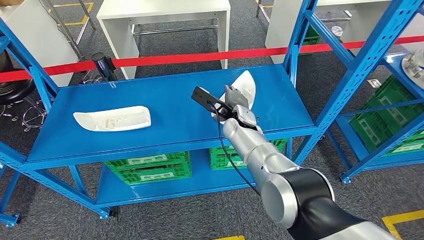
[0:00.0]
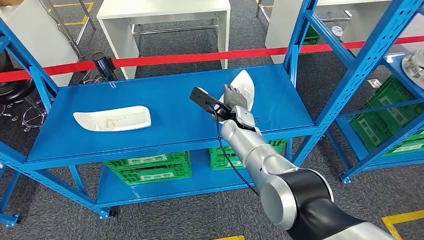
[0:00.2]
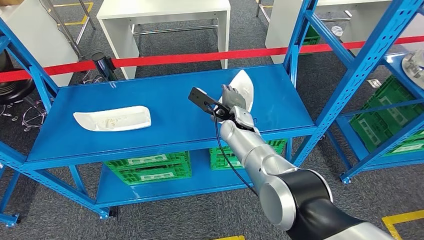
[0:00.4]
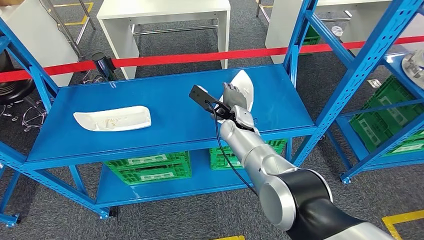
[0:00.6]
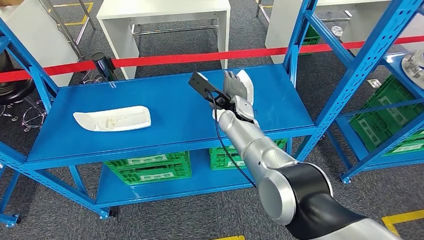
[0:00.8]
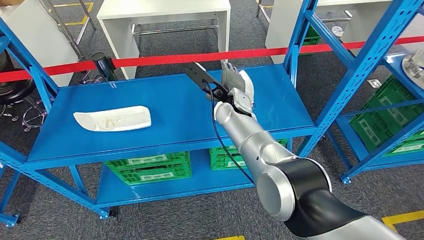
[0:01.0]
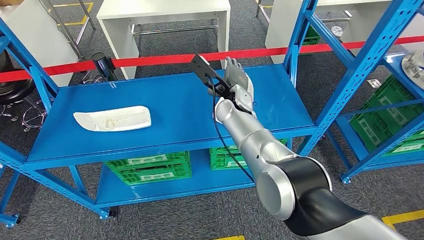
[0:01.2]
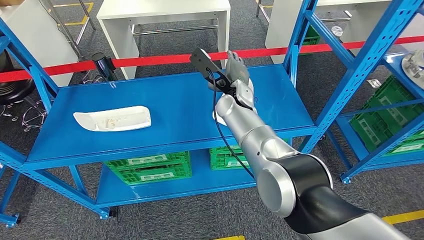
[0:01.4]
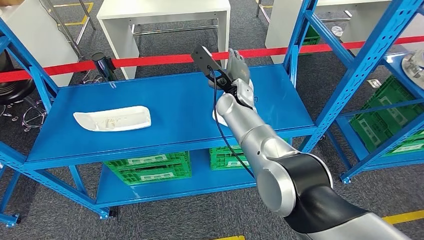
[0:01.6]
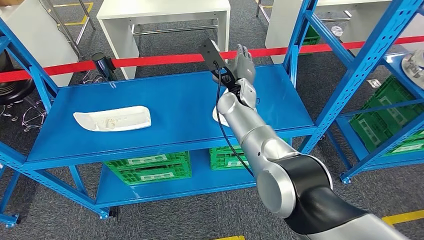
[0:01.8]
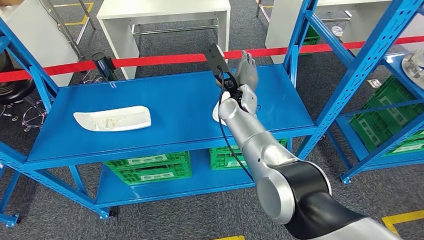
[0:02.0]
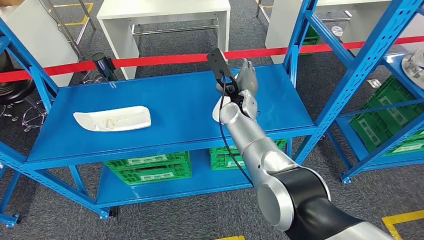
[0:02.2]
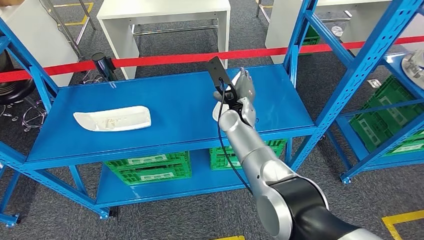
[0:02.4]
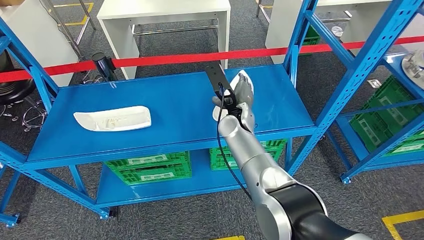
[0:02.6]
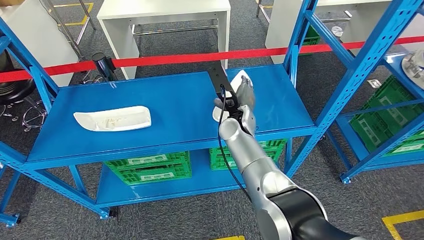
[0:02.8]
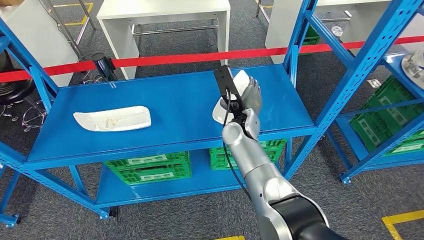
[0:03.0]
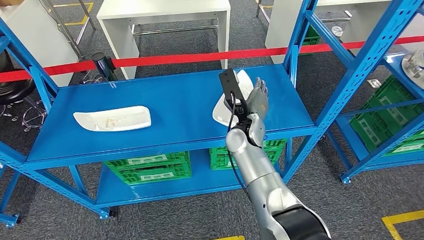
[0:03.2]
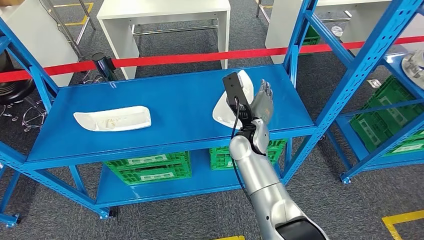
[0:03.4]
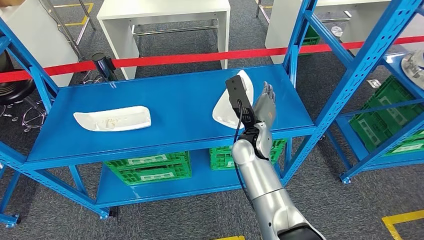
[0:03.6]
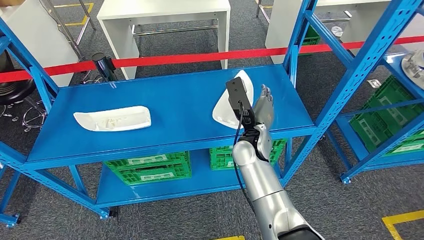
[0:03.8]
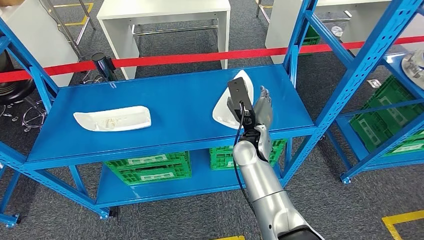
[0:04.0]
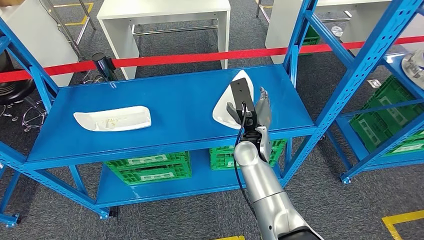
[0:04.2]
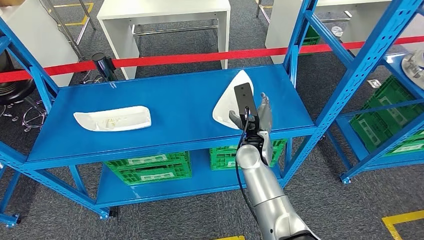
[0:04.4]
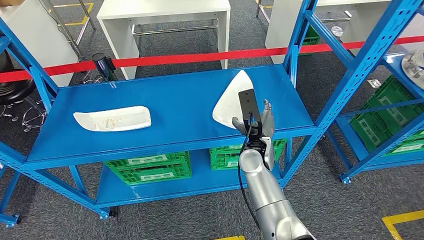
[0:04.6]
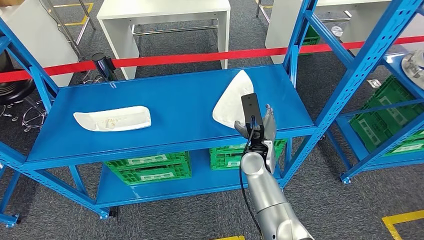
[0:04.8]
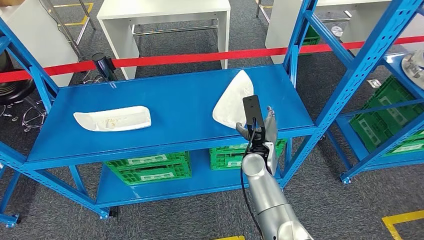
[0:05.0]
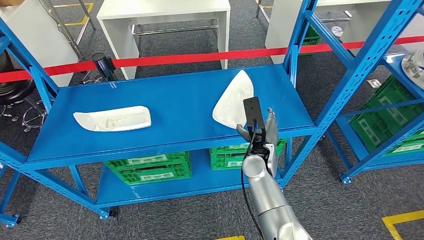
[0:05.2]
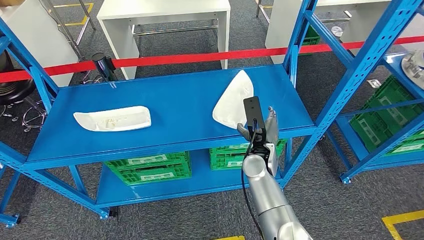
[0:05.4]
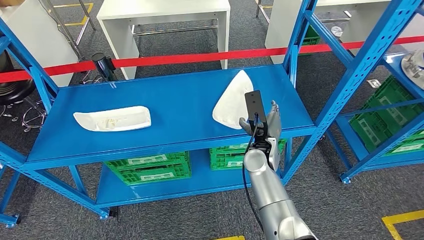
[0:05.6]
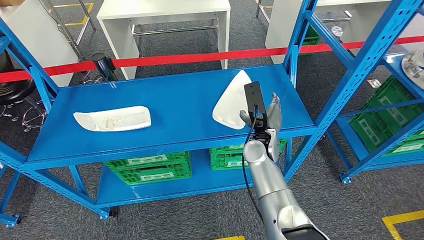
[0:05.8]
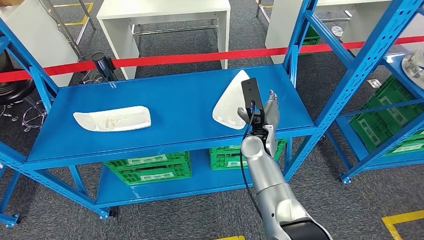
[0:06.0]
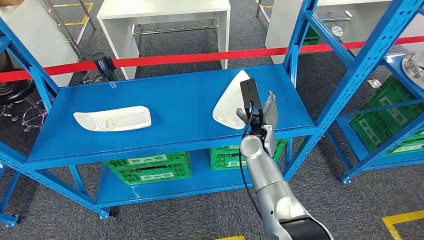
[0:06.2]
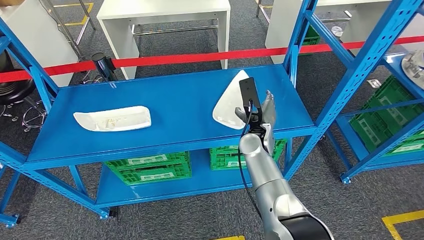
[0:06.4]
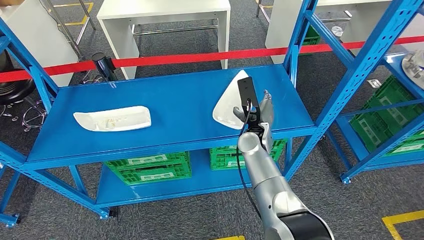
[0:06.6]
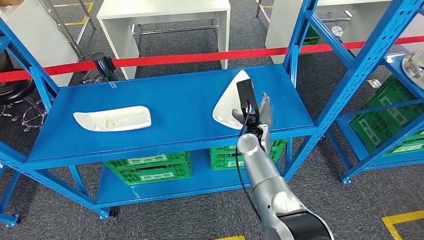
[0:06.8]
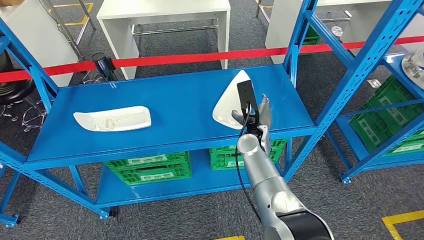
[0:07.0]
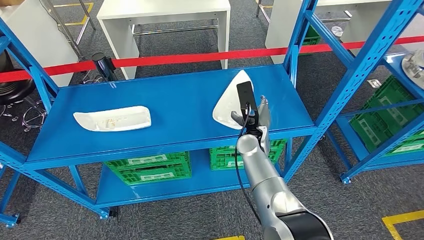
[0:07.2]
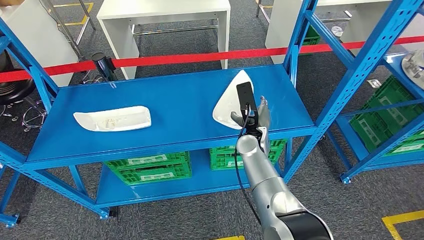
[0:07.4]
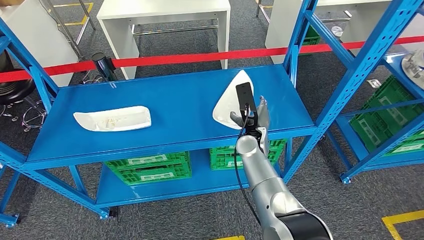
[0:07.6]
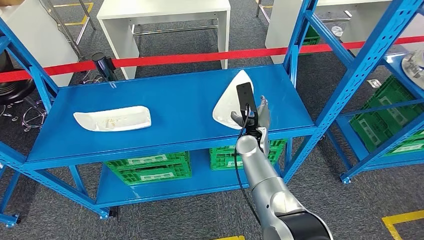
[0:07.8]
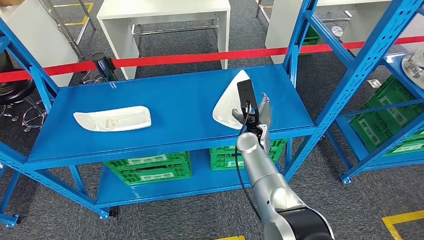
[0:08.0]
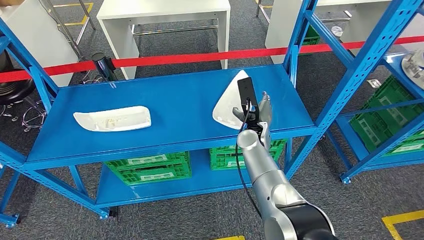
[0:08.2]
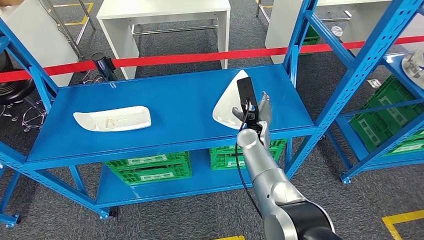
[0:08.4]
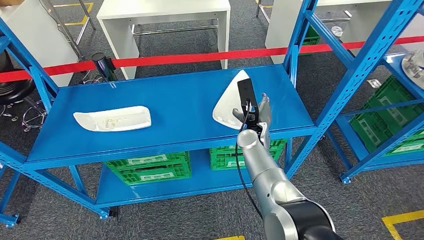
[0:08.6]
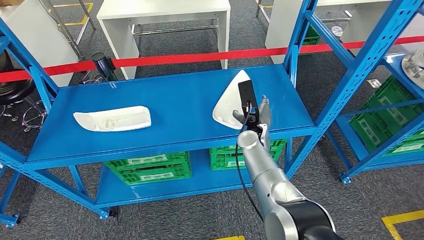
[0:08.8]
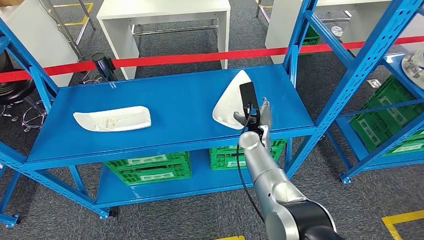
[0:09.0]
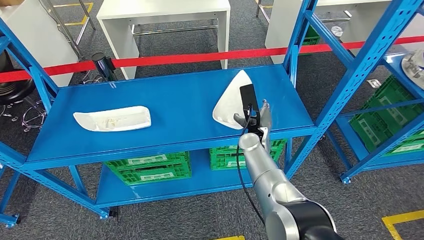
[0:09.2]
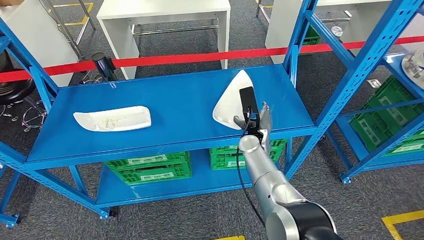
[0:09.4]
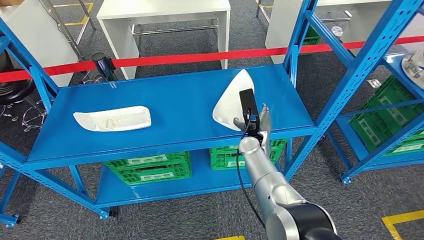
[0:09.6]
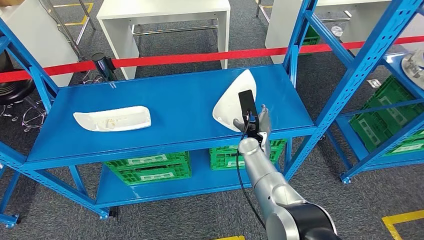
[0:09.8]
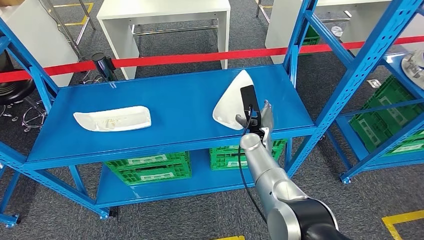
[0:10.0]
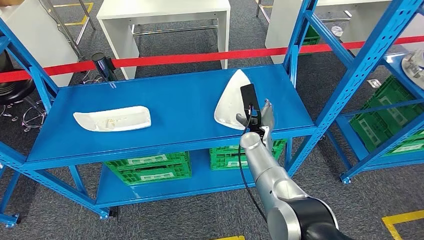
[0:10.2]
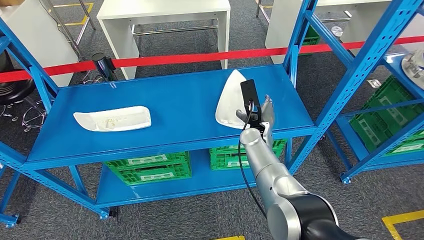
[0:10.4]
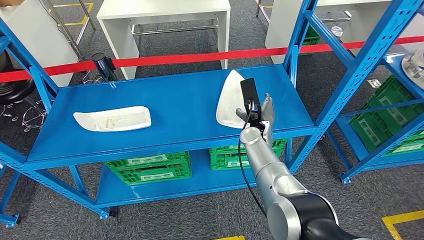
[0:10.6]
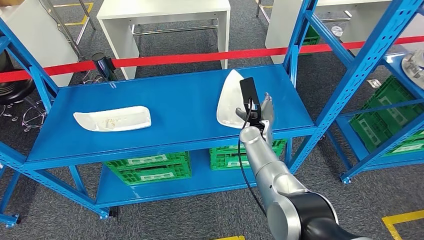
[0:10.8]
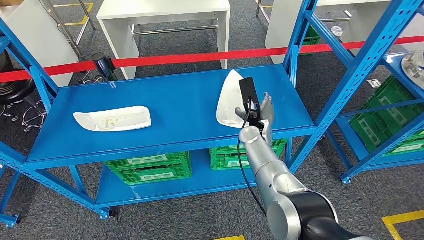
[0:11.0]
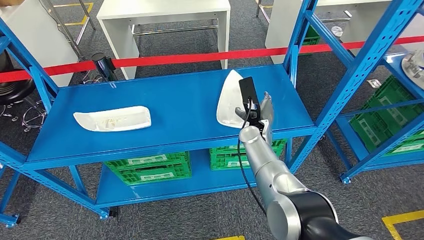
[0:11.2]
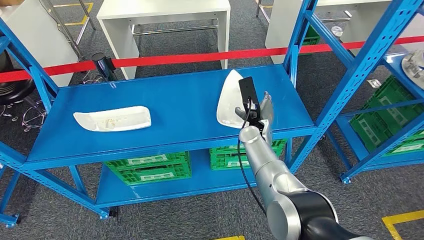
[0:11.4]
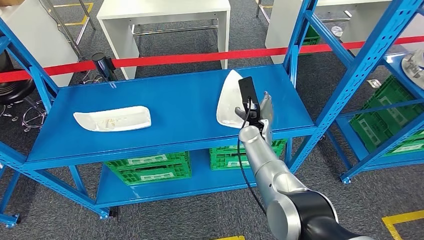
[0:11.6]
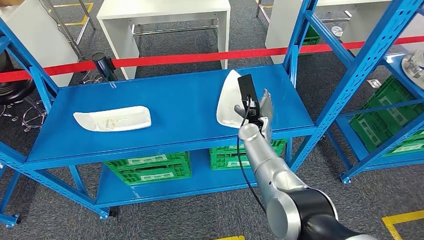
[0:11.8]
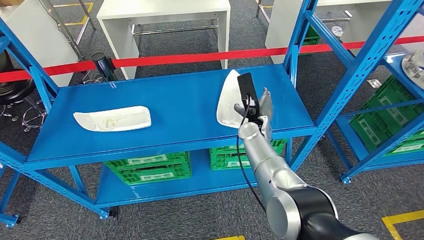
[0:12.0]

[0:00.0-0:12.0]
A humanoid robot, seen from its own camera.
0:00.0 to 0:01.6: The right hand is displaced upward by approximately 10 cm.
0:01.6 to 0:03.0: The right hand heads backward, covering about 5 cm.
0:03.0 to 0:04.4: The right hand travels backward by some 5 cm.
0:04.4 to 0:07.6: The hands move only a little.
0:07.6 to 0:12.0: The hands move only a little.

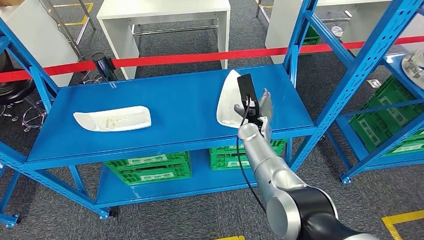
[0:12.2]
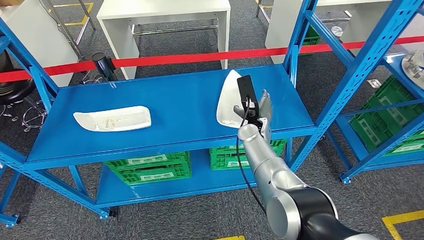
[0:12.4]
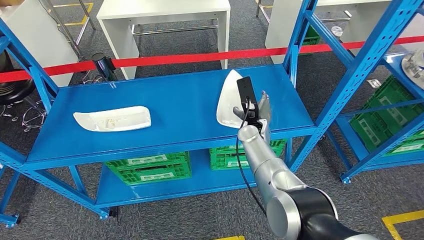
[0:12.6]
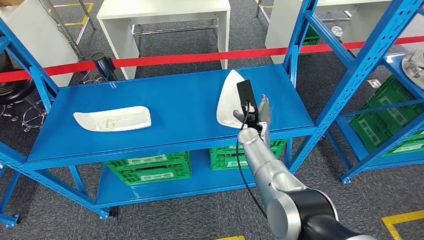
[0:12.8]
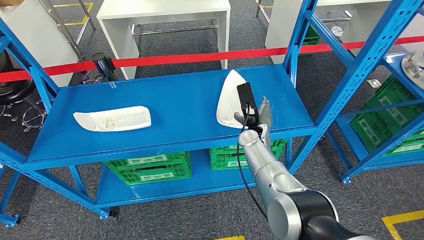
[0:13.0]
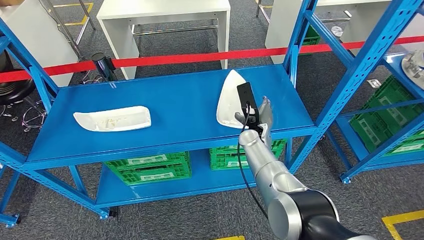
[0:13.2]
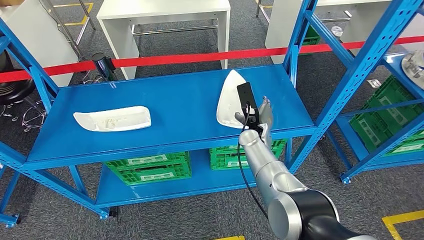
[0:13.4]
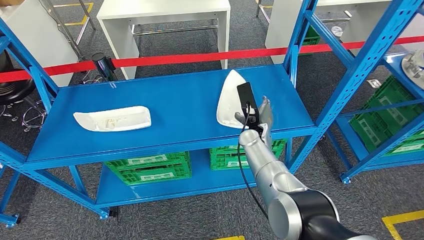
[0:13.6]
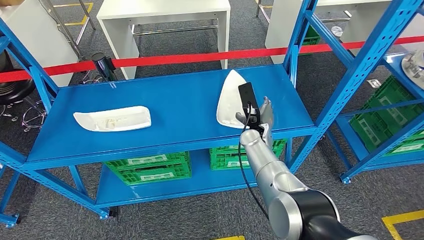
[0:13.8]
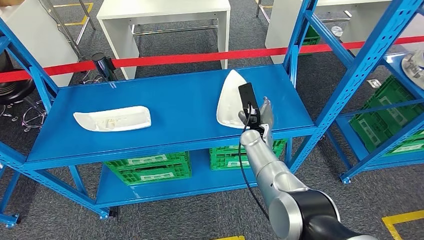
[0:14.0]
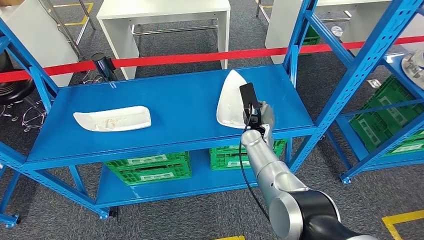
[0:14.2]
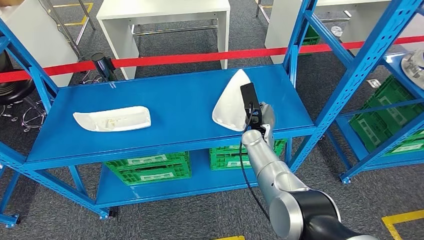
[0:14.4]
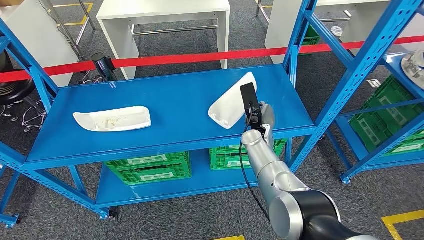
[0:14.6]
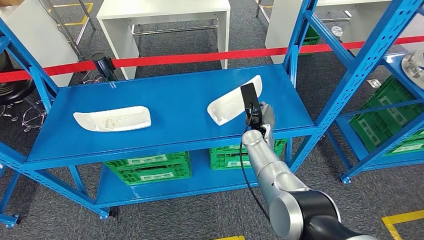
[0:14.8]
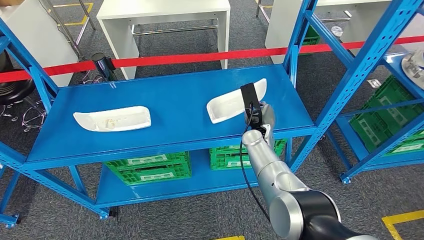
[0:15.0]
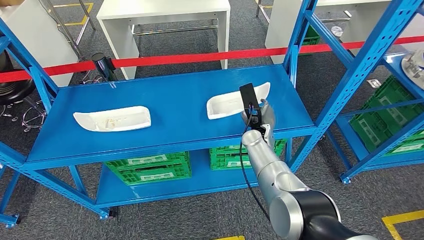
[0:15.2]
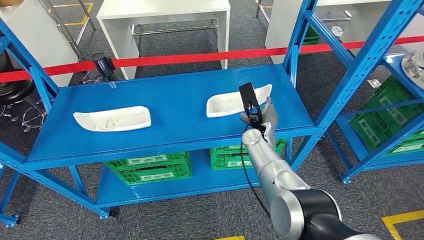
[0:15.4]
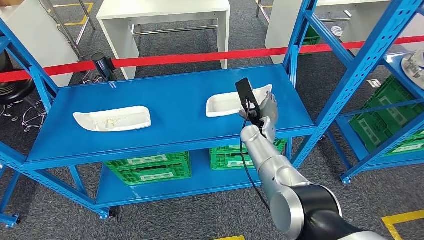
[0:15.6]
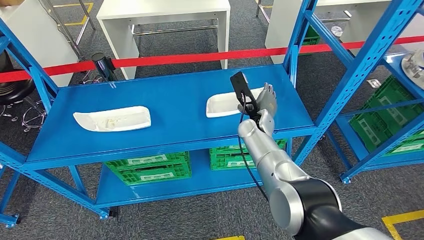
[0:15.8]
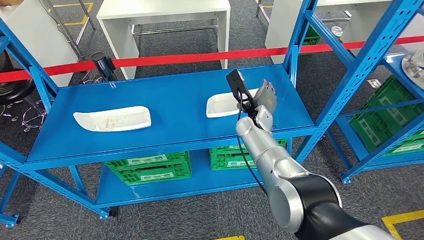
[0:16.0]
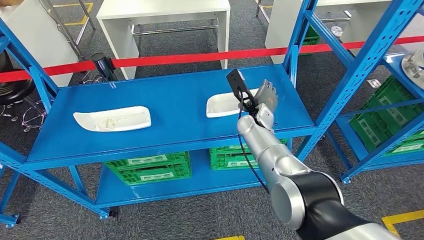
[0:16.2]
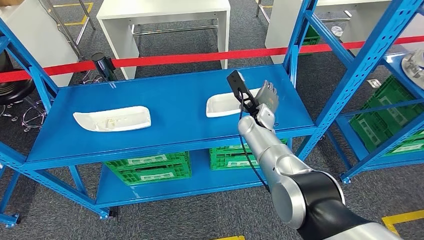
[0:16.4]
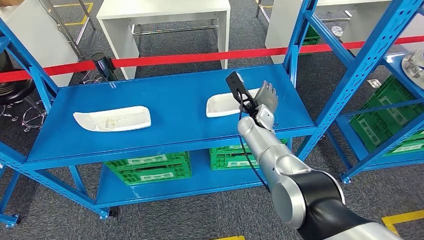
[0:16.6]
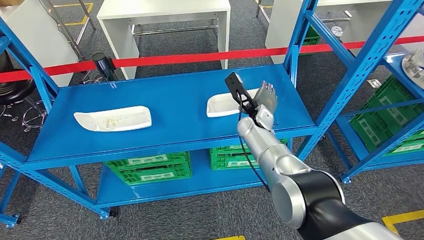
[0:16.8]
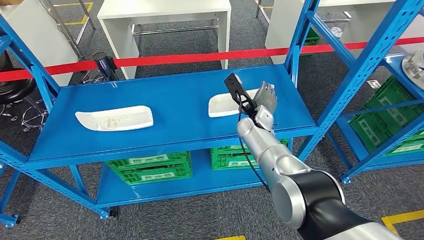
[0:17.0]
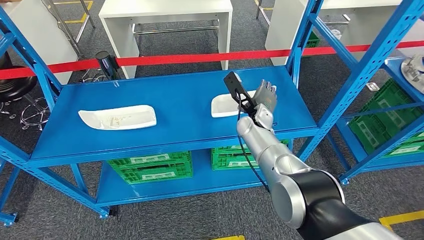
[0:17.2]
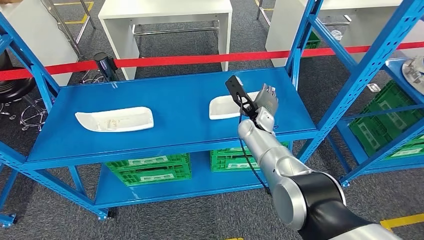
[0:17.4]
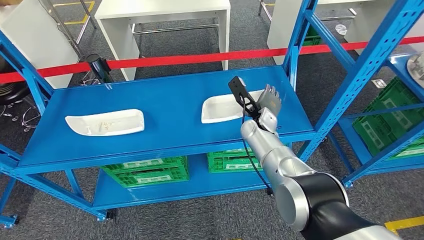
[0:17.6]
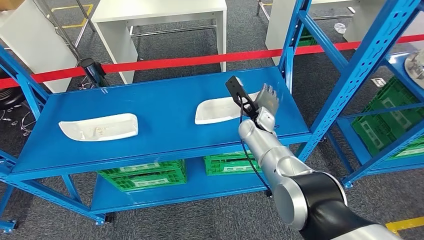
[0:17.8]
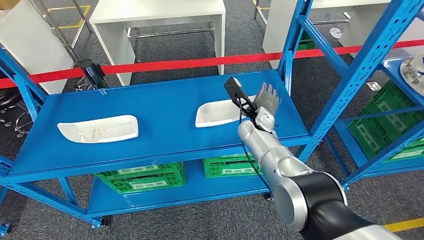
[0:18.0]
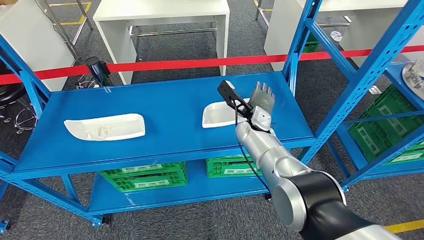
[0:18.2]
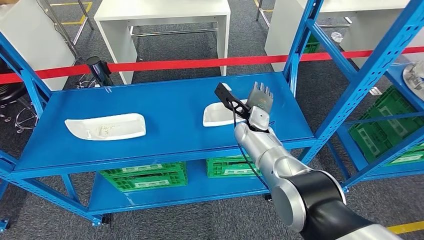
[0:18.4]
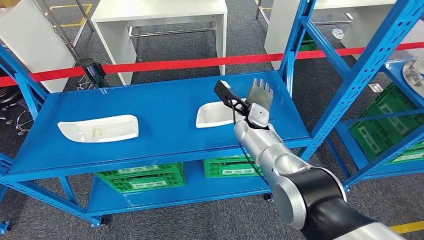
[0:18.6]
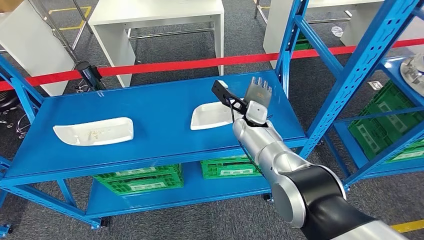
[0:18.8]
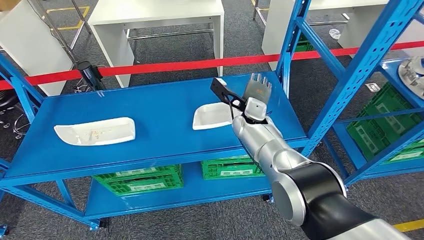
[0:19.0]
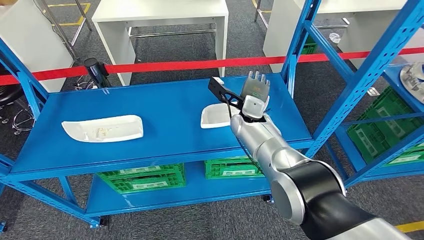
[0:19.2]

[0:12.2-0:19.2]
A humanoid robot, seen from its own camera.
0:12.2 to 0:13.6: There are only small adjustments of the hands.
0:13.6 to 0:15.0: Both hands stay put.
0:15.0 to 0:16.4: The right hand shifts by some 5 cm.
